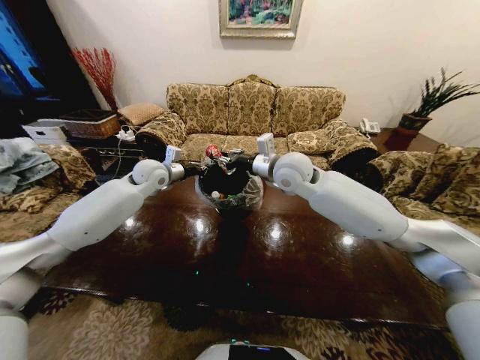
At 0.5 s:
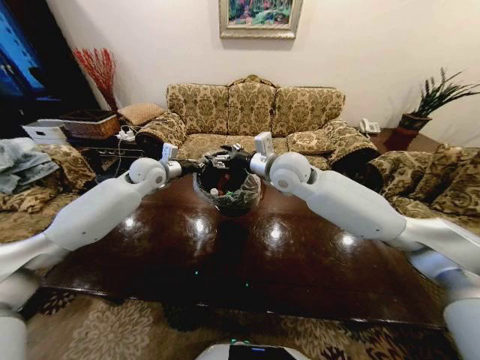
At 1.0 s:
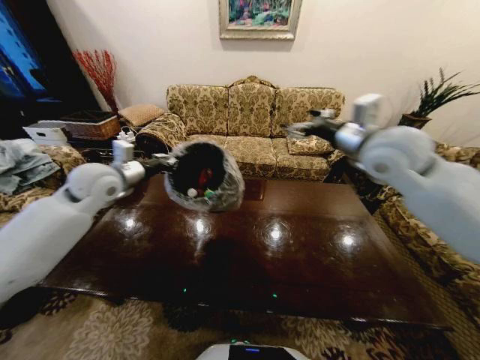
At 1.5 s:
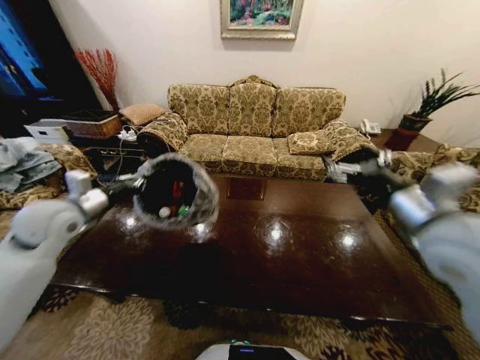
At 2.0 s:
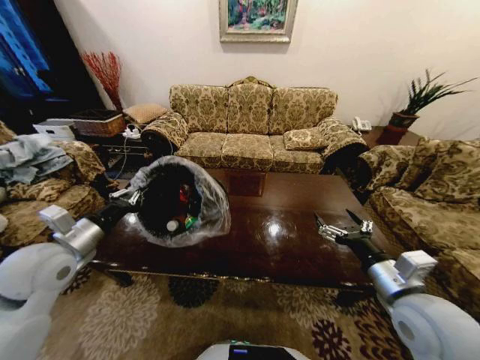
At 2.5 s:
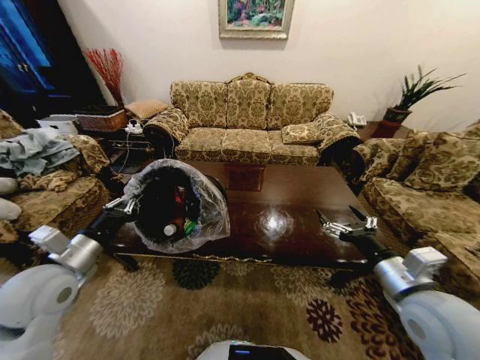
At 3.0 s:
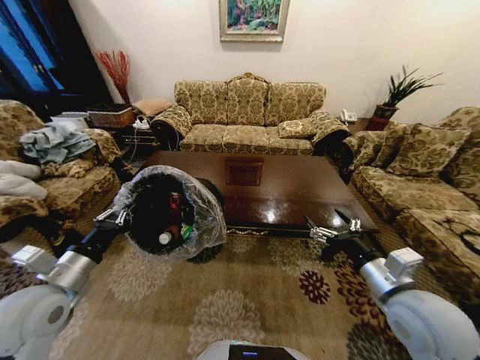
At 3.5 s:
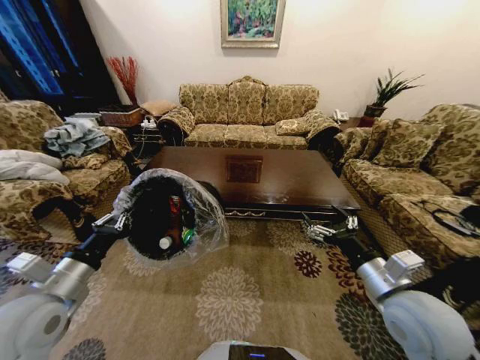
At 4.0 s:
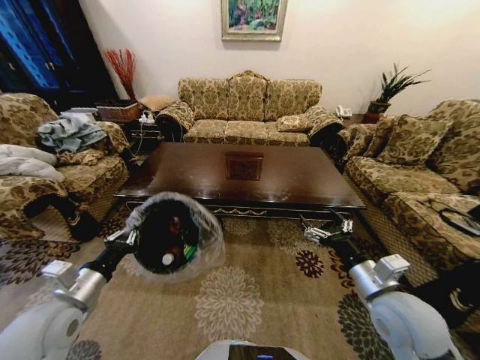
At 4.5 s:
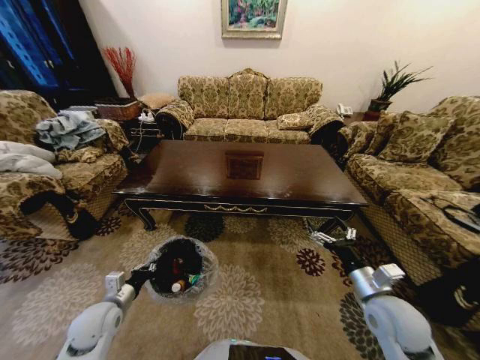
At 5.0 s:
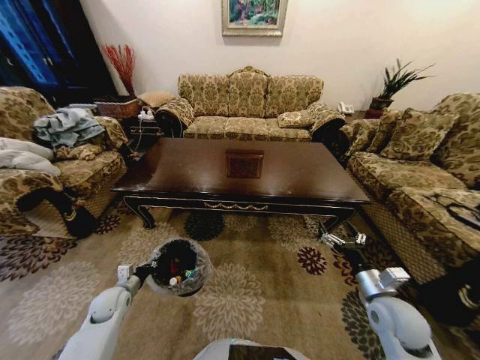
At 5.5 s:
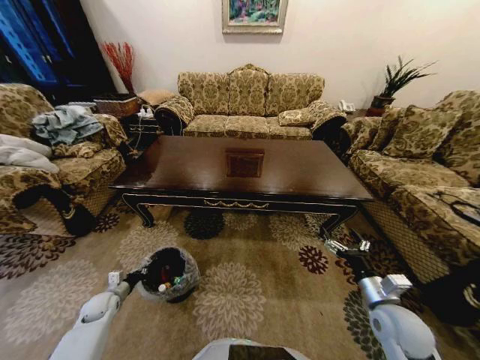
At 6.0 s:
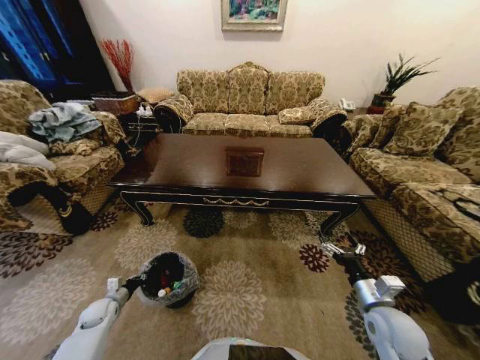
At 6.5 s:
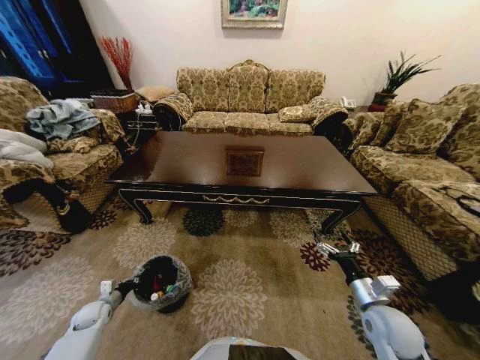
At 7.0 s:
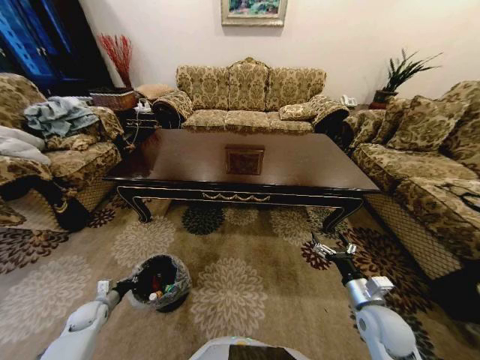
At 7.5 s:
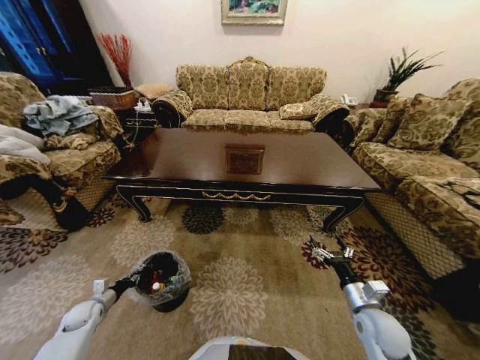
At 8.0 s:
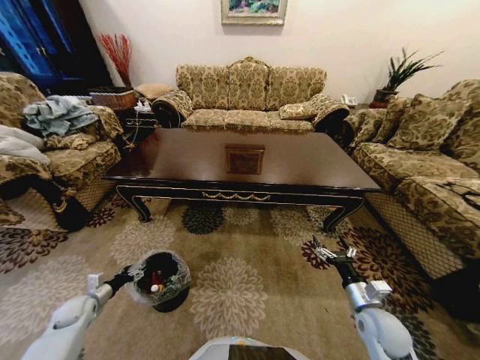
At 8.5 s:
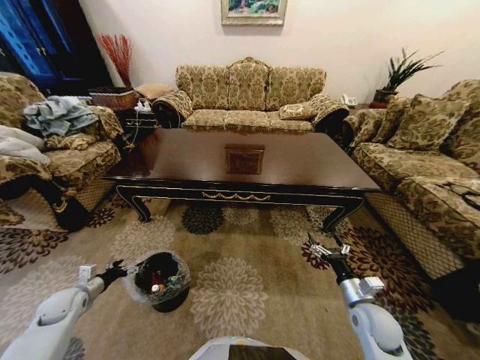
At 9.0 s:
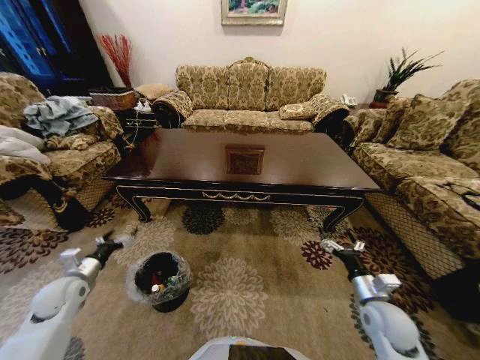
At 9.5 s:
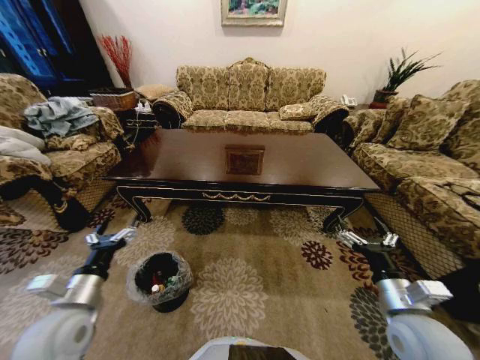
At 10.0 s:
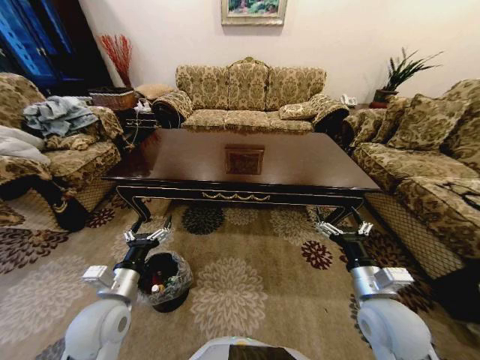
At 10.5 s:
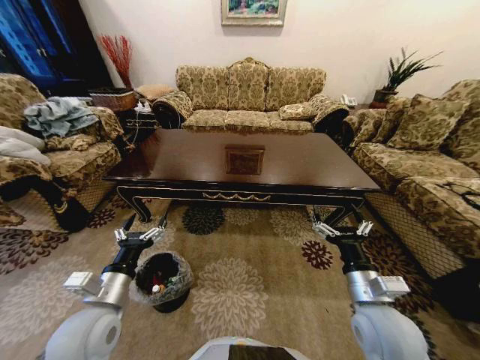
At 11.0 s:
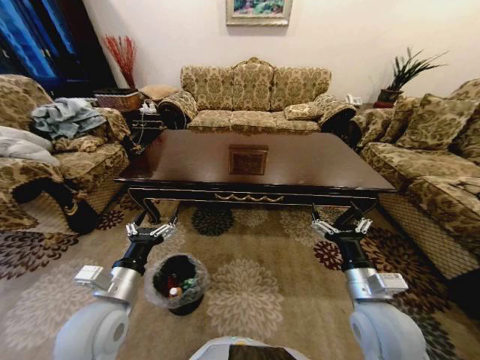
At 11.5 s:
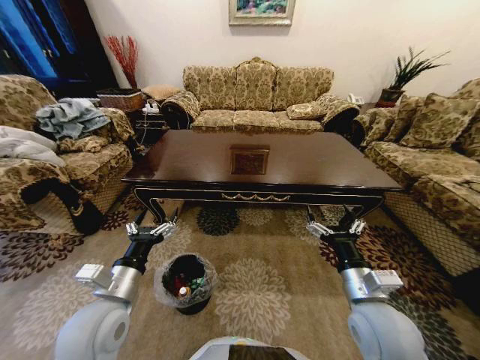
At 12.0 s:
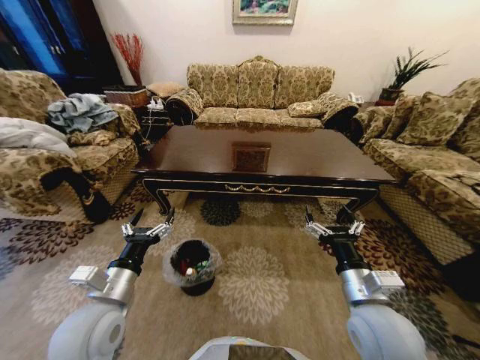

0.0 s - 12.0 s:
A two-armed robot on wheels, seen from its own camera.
Task of the whole recording: Move to the front of the table and place the trash on the table into the trash bin.
0.0 s - 2.0 s: The right gripper travels backward, to the right and downward by approximately 35 cm, and opens its fingers. The left gripper moves backward, approximately 25 cm.
2.0 s - 4.0 s: The left gripper goes some 10 cm backward and downward.
4.0 s - 6.0 s: The right gripper goes some 10 cm downward; the left gripper moves downward and to the left, some 30 cm.
6.0 s - 8.0 s: The left gripper changes place by about 5 cm, and opens up.
8.0 s - 10.0 s: The left gripper travels to the right and upward by roughly 30 cm; the right gripper moves upward and to the left, some 15 cm.
10.0 s - 12.0 s: The right gripper ends up about 5 cm from where it was.

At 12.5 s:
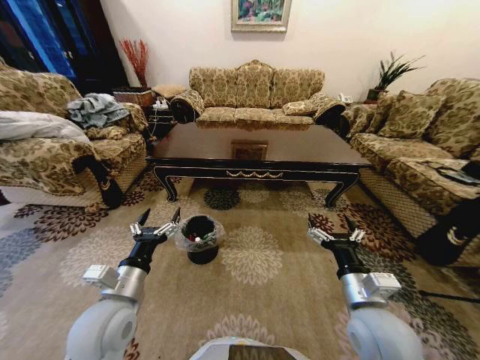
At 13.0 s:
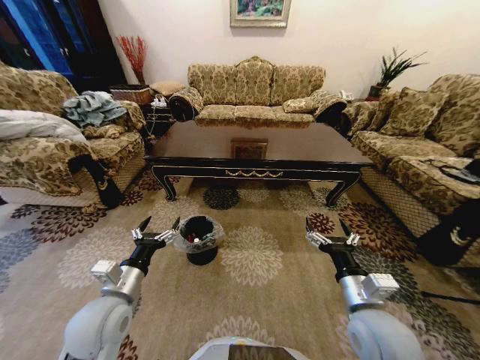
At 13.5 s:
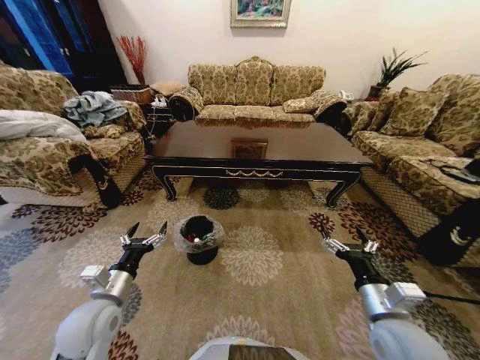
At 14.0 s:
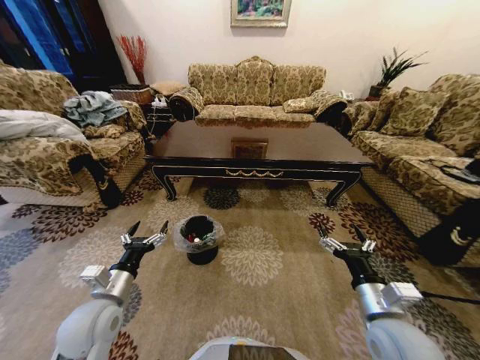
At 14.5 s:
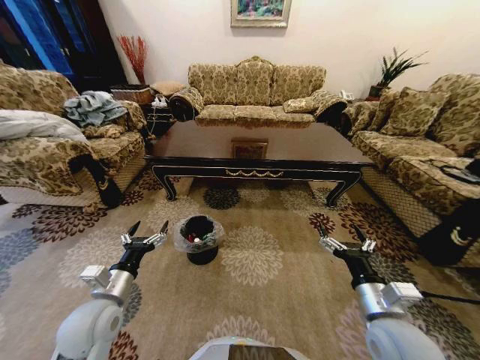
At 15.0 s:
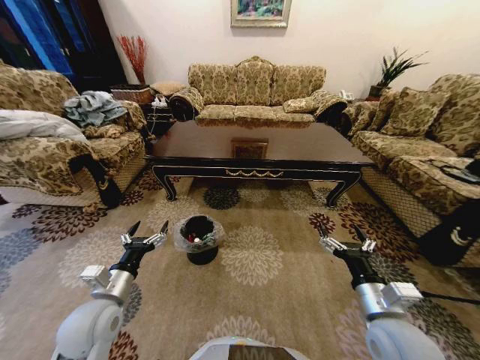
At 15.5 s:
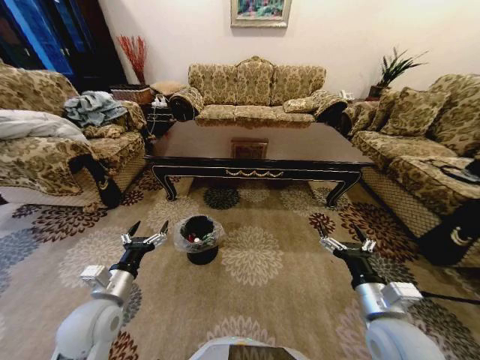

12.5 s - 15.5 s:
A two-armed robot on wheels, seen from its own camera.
Task of the whole recording: Move to the front of the table and place the trash on the table into the trash bin.
12.5 s - 14.0 s: The left gripper moves to the left, some 5 cm.
14.0 s - 15.5 s: Neither gripper changes place.

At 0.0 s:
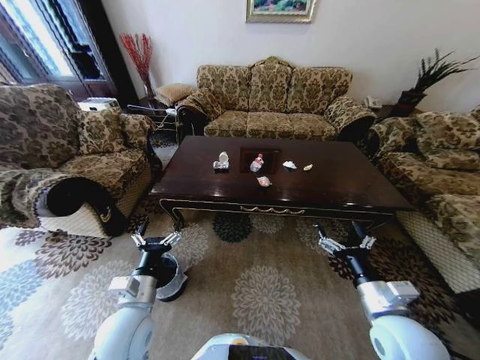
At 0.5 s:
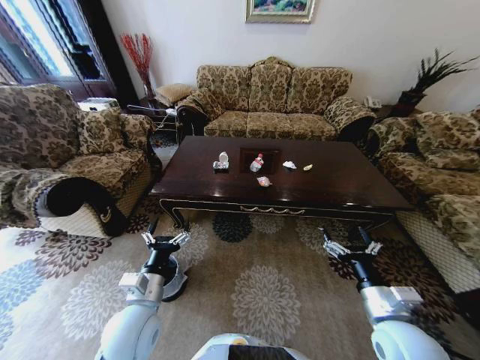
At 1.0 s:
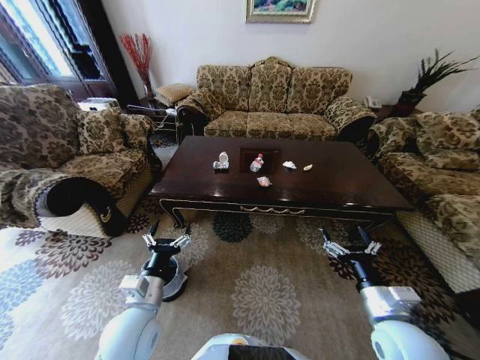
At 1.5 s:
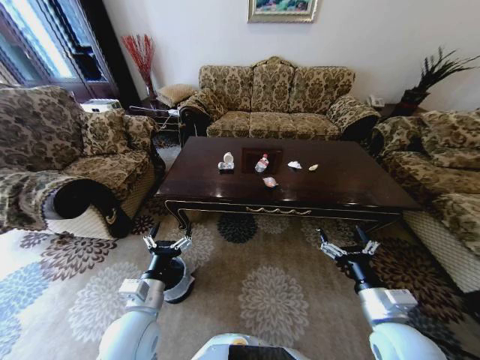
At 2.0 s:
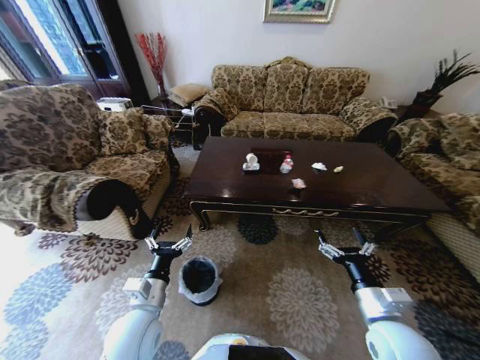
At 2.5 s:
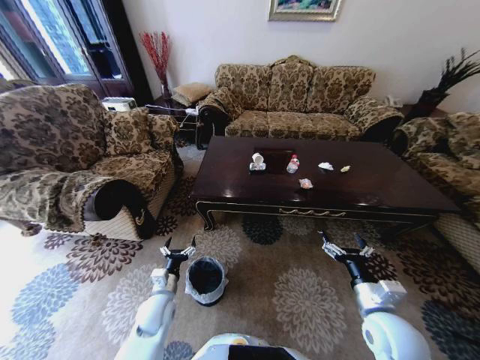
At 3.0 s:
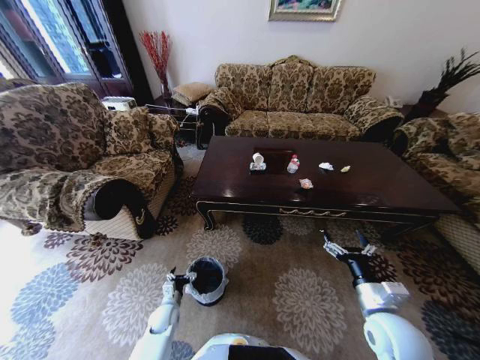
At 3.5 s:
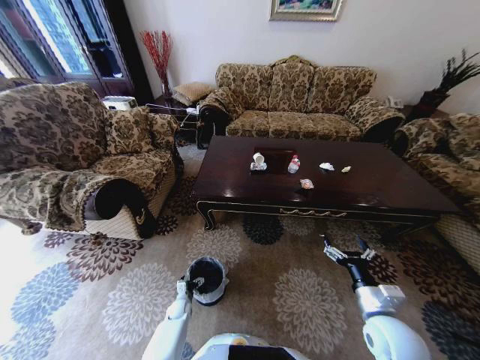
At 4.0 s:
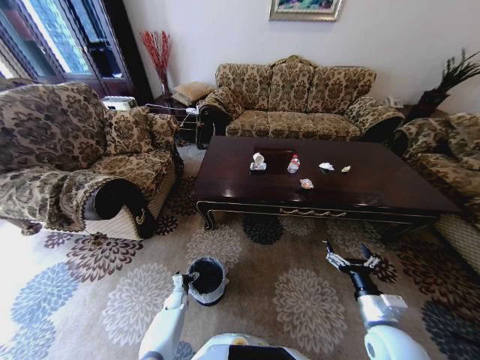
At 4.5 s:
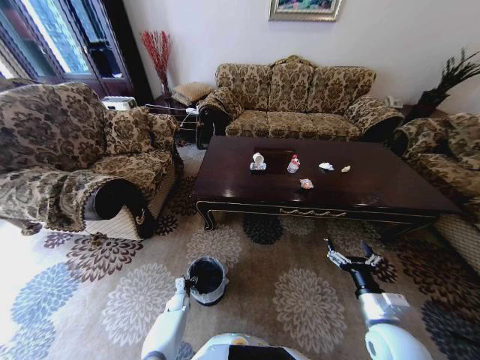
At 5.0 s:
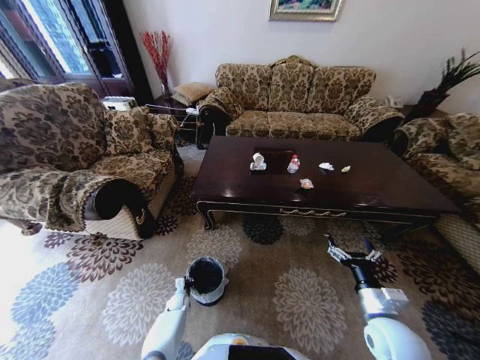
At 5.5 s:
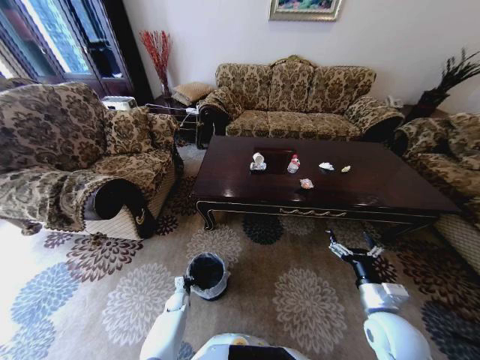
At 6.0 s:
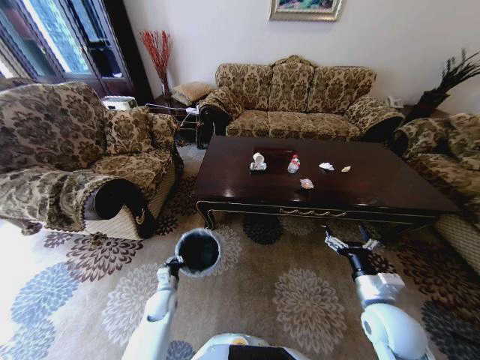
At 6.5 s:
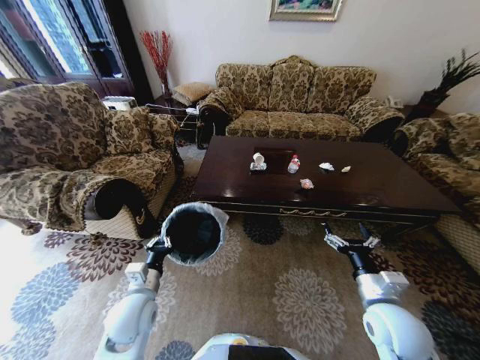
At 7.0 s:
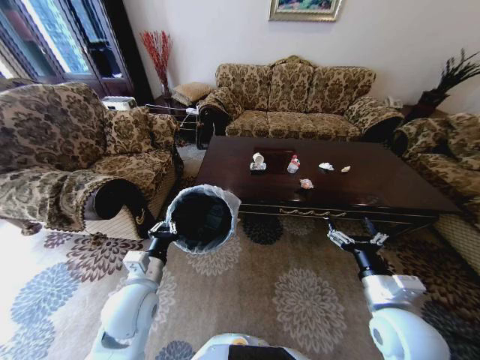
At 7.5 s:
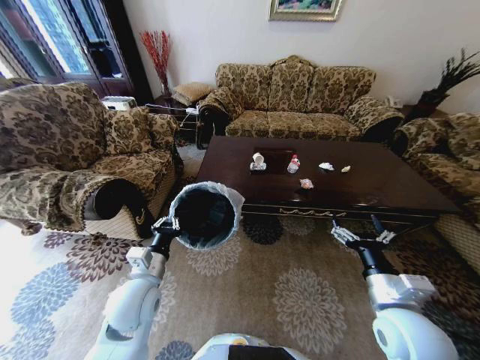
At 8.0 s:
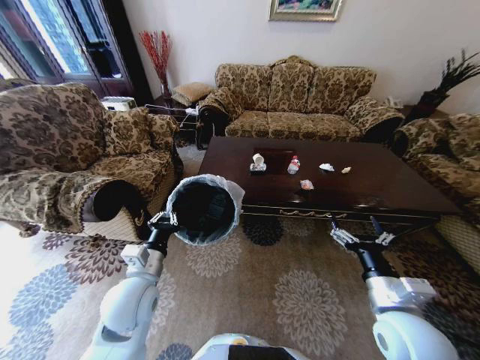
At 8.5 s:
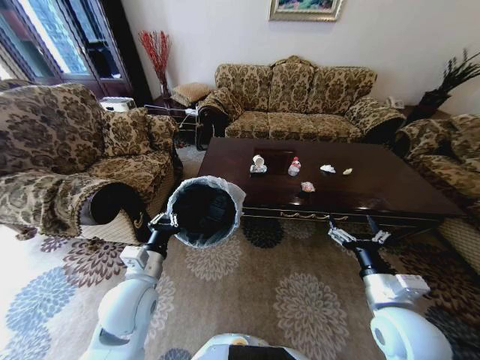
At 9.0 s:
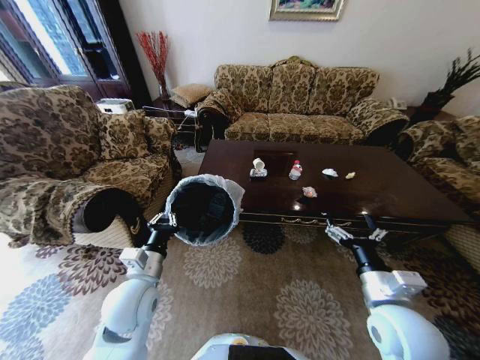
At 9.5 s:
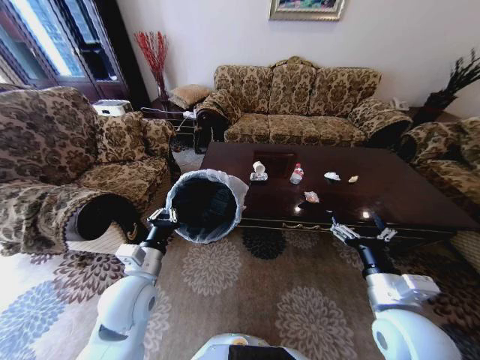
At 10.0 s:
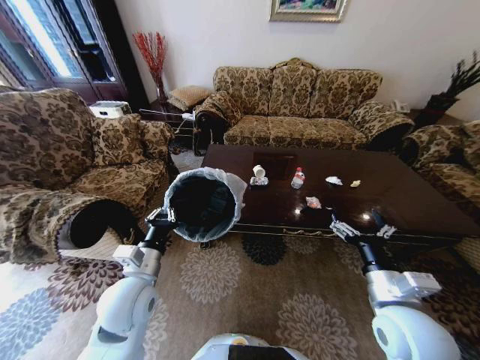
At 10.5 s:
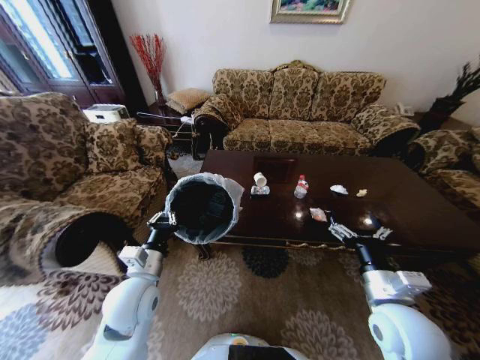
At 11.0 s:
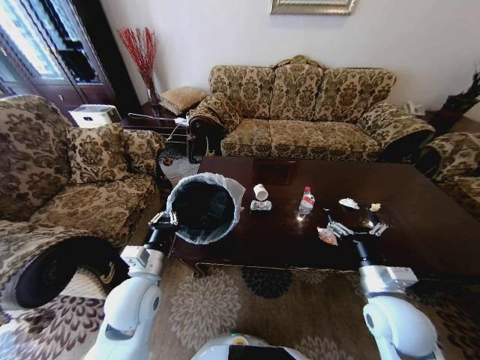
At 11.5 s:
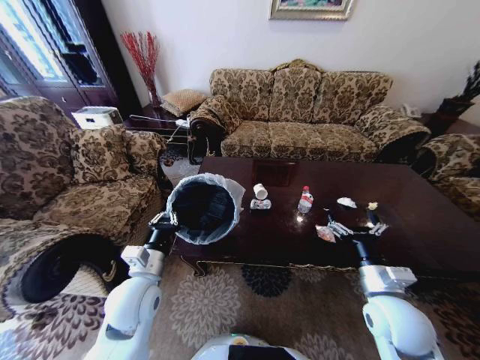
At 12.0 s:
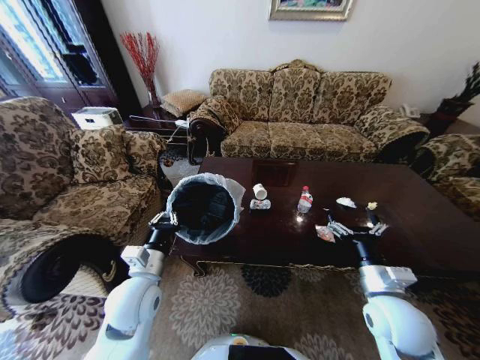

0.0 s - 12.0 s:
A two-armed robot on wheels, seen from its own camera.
Task of the whole recording: Move to the front of the table and place the trash on the table into the trash bin.
2.0 s - 4.0 s: The left gripper shifts about 35 cm downward, while the right gripper heads downward, covering about 5 cm.
4.0 s - 6.0 s: The left gripper shifts some 15 cm upward, and closes its fingers.
6.0 s - 8.0 s: The right gripper heads upward, covering some 5 cm, while the left gripper heads upward, covering roughly 30 cm.
10.0 s - 12.0 s: The right gripper moves approximately 5 cm.
